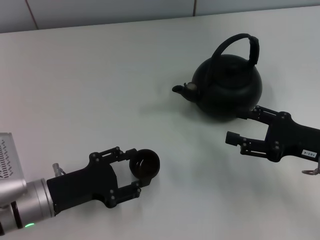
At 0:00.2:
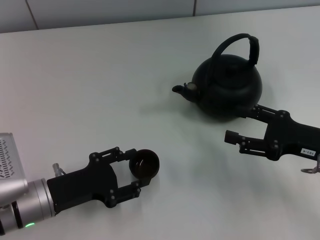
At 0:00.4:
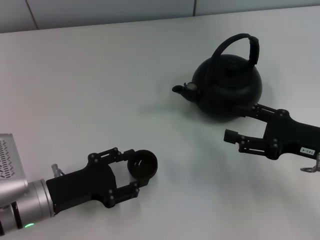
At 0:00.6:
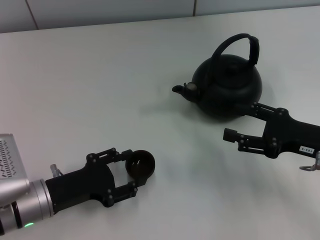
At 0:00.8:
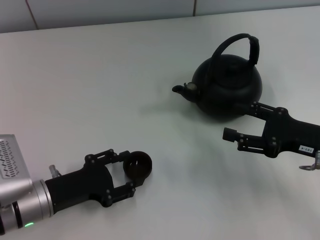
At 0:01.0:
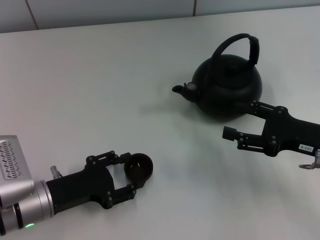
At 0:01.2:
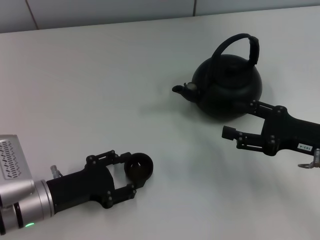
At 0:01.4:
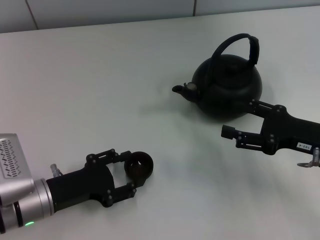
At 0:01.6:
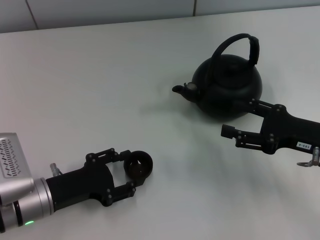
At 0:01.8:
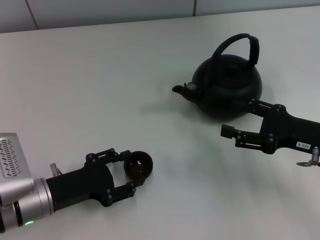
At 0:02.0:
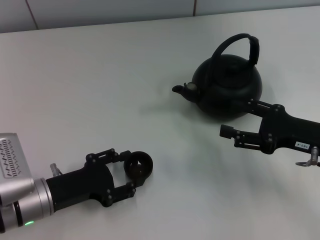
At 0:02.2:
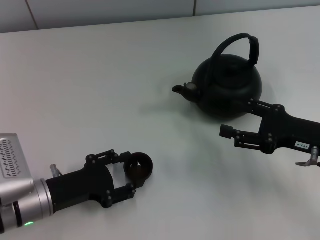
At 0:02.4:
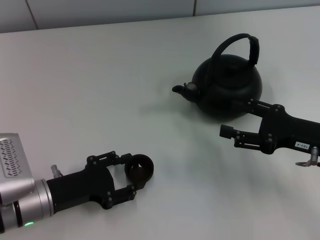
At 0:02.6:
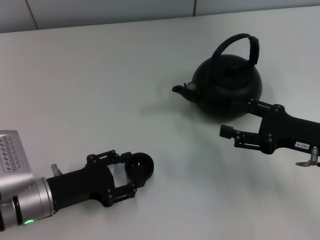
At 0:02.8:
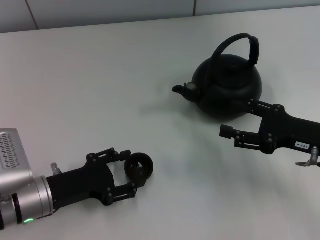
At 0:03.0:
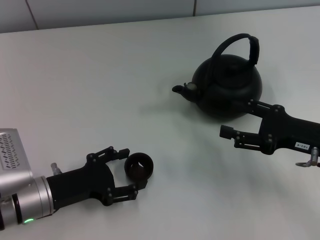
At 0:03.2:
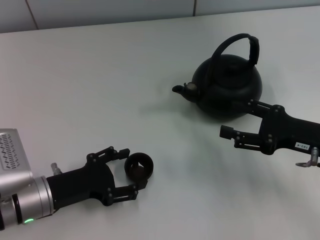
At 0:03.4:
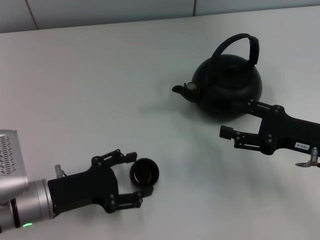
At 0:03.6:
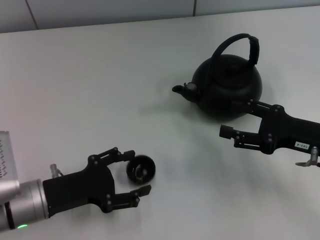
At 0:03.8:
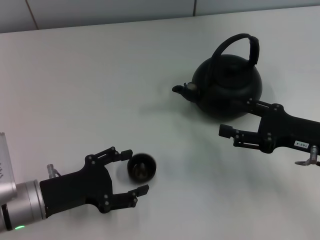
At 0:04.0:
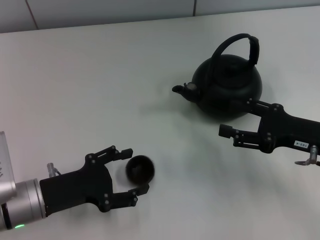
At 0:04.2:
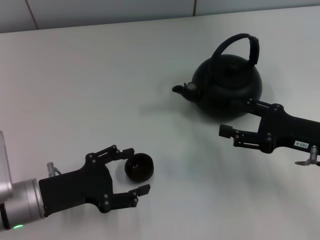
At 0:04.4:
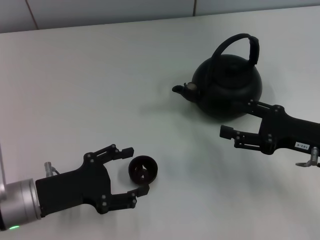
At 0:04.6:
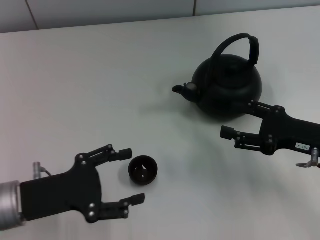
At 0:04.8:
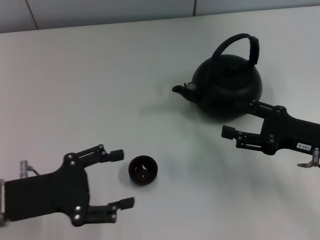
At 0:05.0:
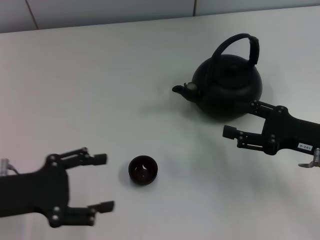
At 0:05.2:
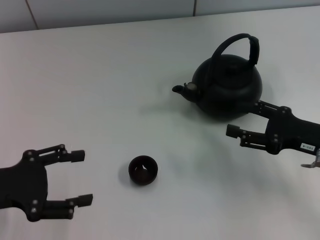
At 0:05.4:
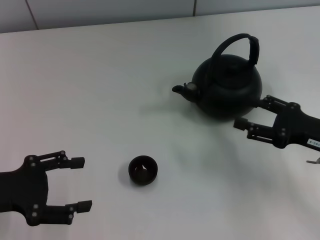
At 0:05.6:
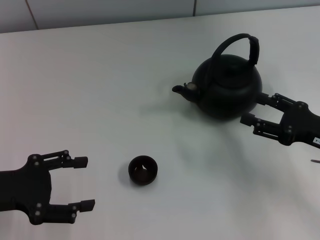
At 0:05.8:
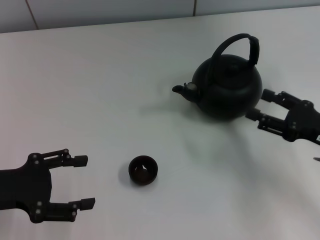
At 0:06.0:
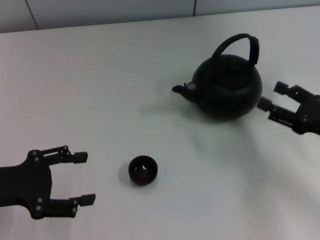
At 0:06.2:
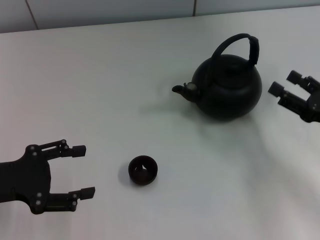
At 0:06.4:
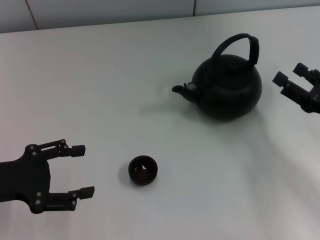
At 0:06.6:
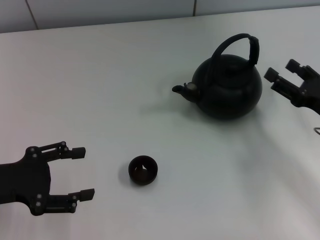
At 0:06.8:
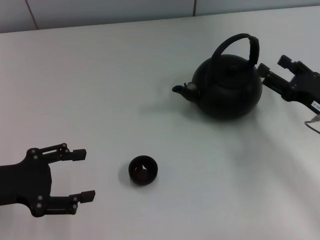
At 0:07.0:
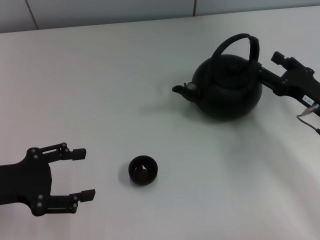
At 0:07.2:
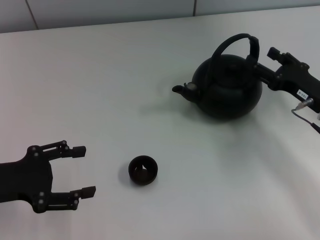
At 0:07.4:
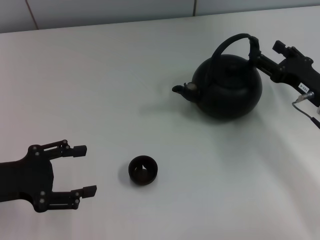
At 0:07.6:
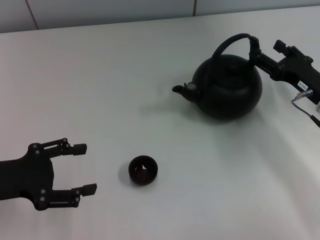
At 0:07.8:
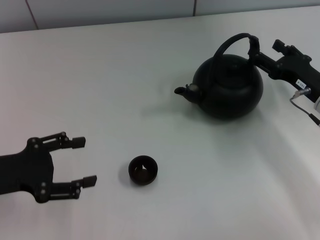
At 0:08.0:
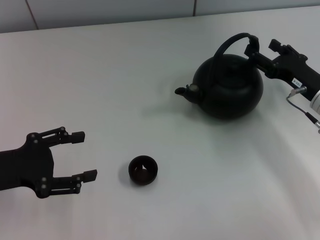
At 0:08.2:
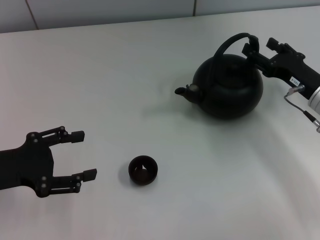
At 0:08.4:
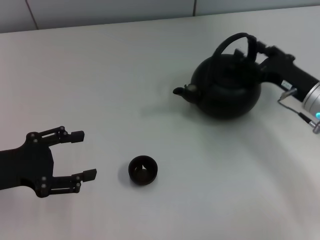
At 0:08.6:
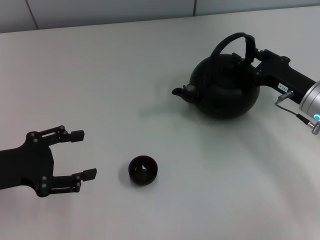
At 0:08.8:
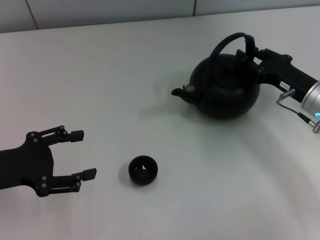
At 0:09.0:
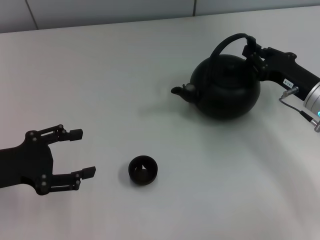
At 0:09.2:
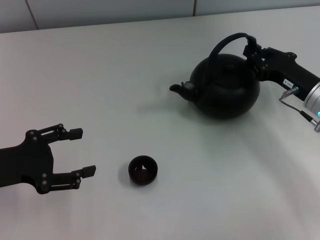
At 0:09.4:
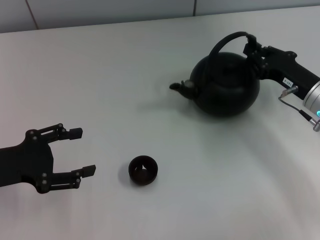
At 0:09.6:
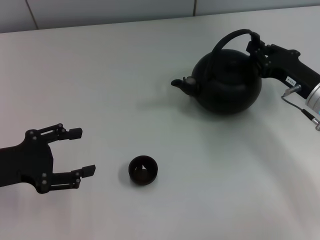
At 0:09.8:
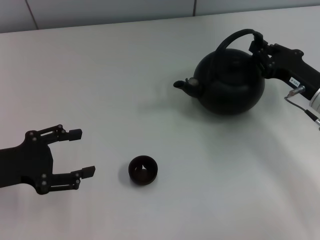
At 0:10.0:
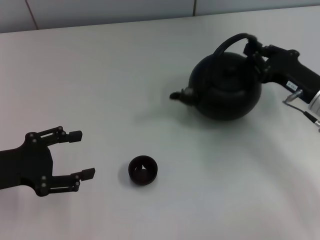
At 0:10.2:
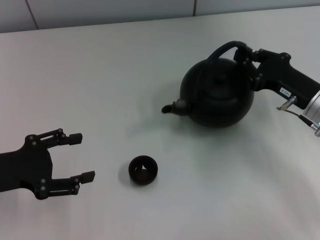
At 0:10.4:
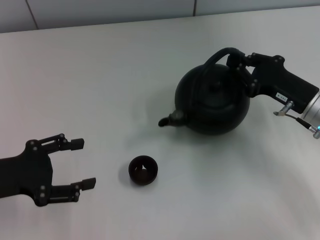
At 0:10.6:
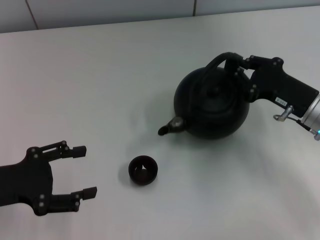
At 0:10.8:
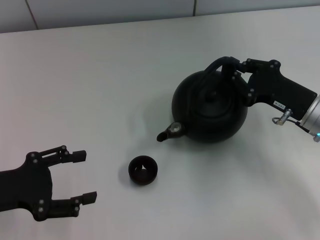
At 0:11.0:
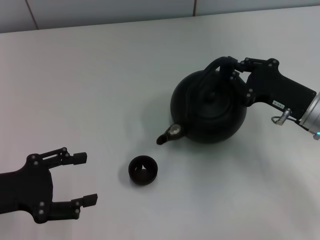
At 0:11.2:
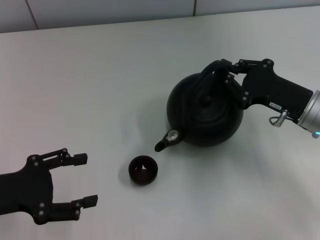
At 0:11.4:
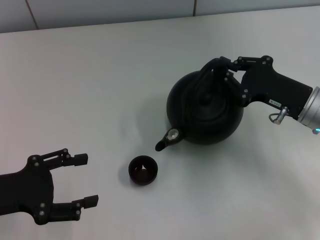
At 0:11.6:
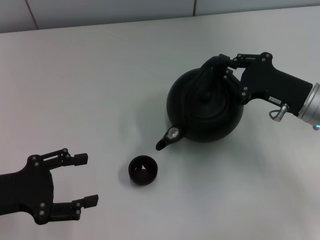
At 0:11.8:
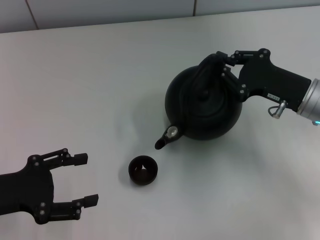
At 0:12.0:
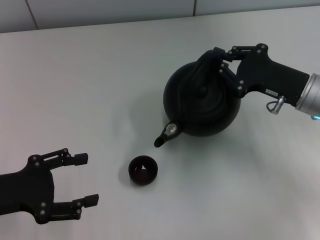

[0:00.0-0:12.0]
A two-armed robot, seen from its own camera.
Task of the whole recording: Grasp the handle of the teapot with one hand and pour tea into the teacup.
Step, 0:00.0 to 0:04.6: Place the teacup in the center of view with the left gripper.
Step, 0:05.0 to 0:11.8: Pick up the teapot with the right gripper.
0:00.0 to 0:01.6: There are only small adjustments of the grippers.
0:01.6 to 0:03.0: Both grippers stay put.
0:03.0 to 0:04.4: The left gripper opens up.
0:04.4 to 0:06.0: The left gripper moves to the left and upward, approximately 10 cm.
0:06.0 to 0:07.6: The right gripper travels forward by roughly 10 cm.
0:07.6 to 0:09.0: The right gripper closes up.
0:09.0 to 0:10.4: There are only small adjustments of the grippers.
0:10.4 to 0:12.0: The grippers move only a little.

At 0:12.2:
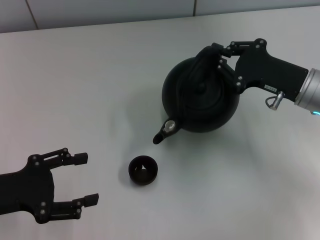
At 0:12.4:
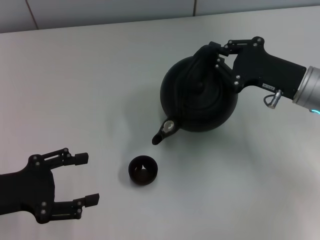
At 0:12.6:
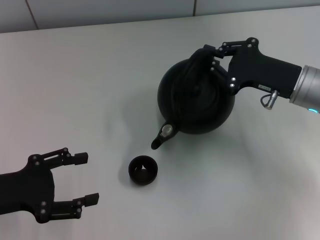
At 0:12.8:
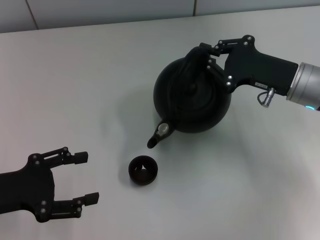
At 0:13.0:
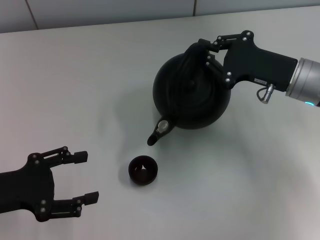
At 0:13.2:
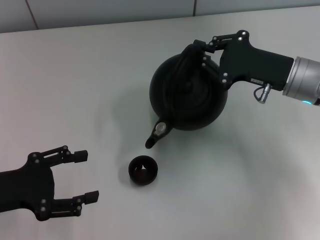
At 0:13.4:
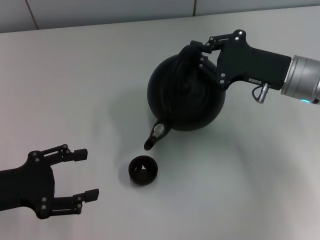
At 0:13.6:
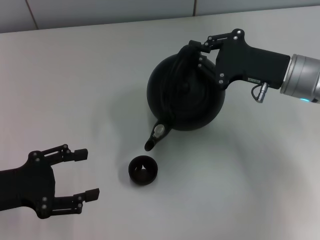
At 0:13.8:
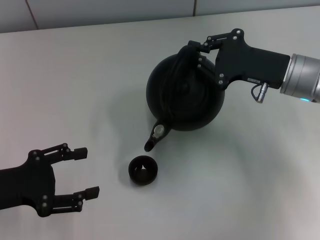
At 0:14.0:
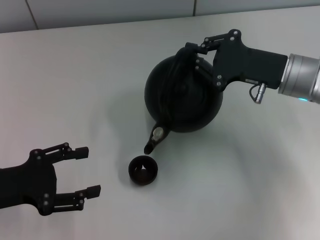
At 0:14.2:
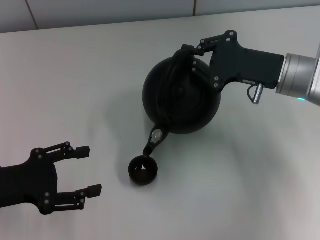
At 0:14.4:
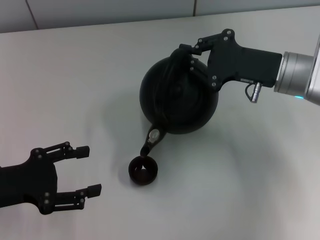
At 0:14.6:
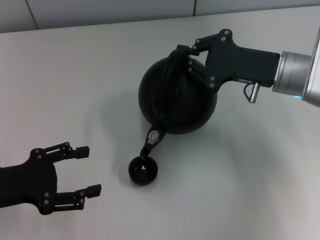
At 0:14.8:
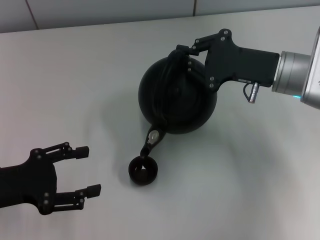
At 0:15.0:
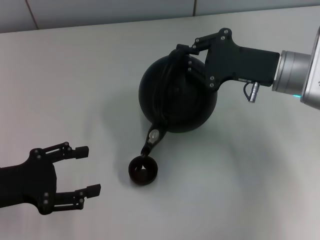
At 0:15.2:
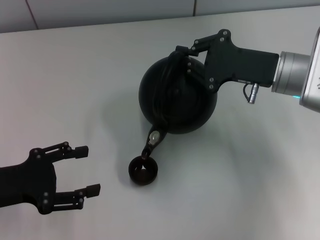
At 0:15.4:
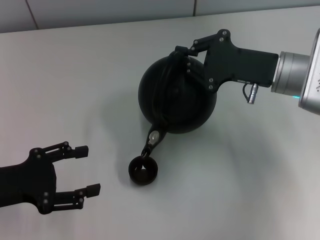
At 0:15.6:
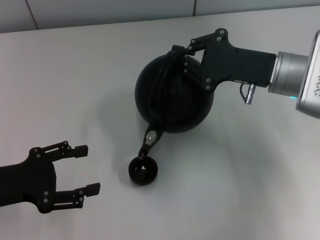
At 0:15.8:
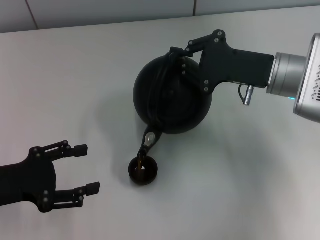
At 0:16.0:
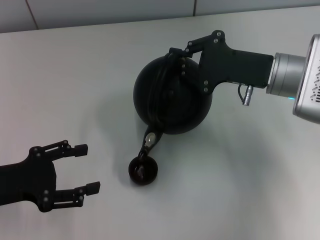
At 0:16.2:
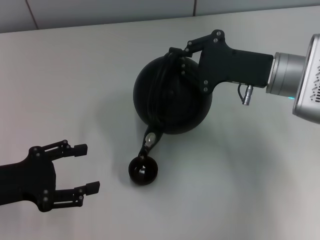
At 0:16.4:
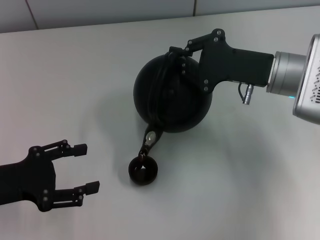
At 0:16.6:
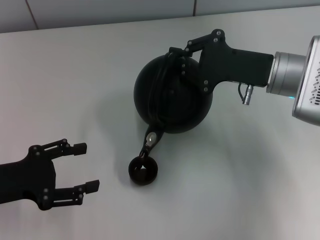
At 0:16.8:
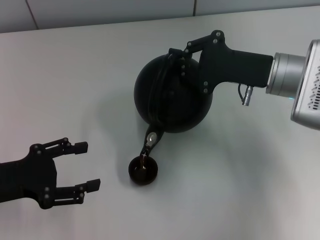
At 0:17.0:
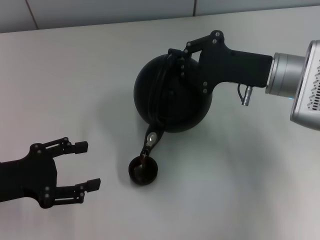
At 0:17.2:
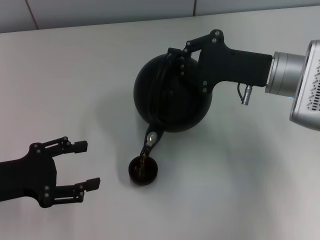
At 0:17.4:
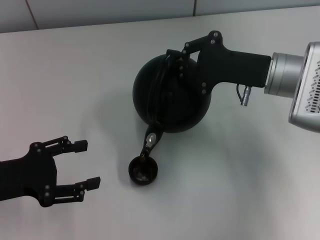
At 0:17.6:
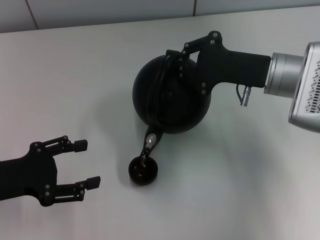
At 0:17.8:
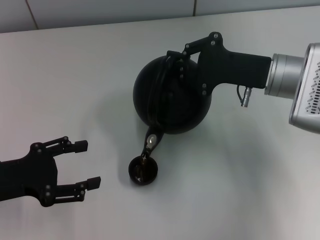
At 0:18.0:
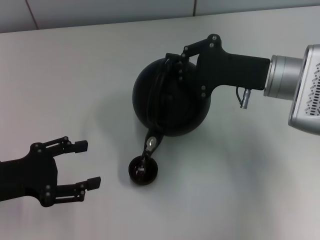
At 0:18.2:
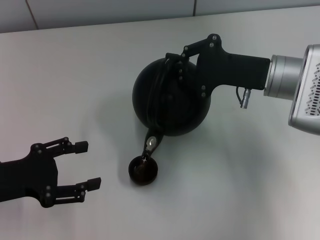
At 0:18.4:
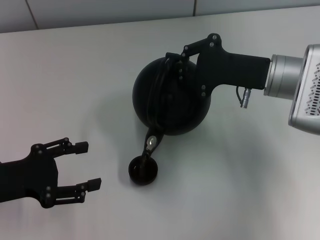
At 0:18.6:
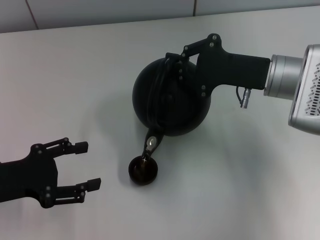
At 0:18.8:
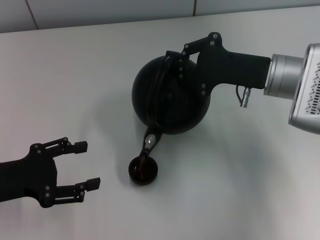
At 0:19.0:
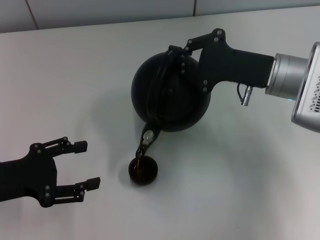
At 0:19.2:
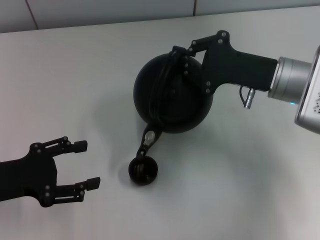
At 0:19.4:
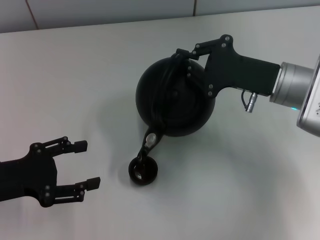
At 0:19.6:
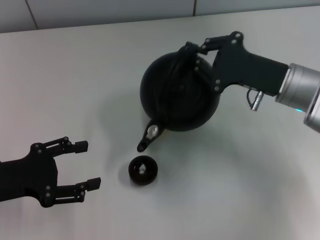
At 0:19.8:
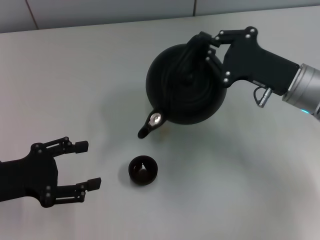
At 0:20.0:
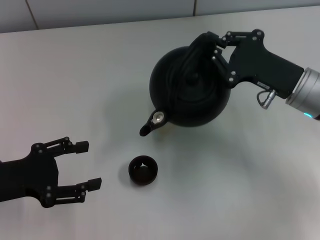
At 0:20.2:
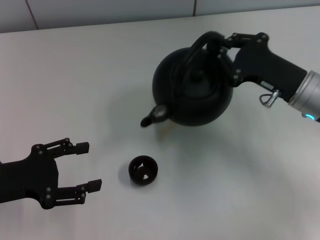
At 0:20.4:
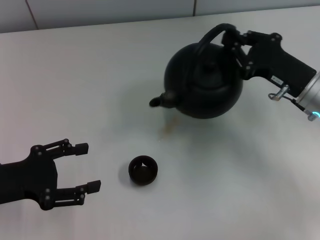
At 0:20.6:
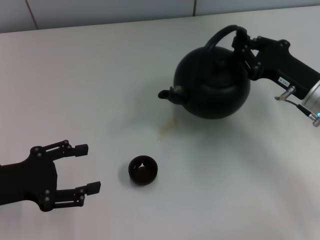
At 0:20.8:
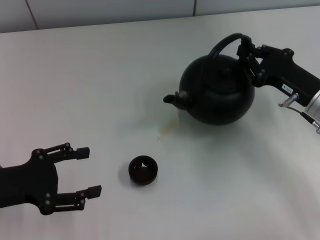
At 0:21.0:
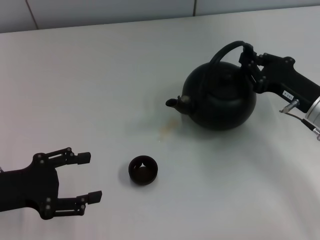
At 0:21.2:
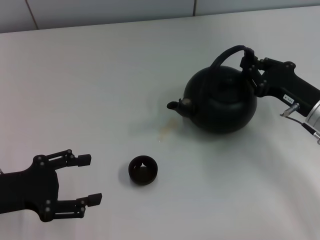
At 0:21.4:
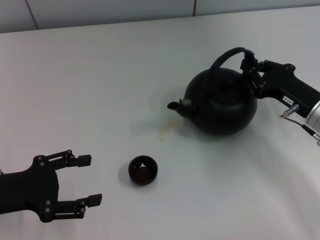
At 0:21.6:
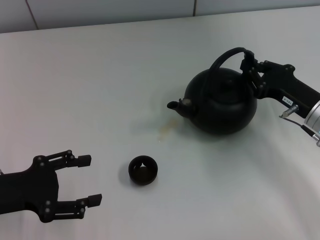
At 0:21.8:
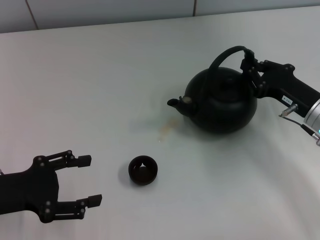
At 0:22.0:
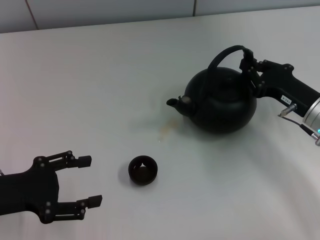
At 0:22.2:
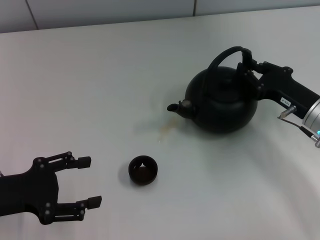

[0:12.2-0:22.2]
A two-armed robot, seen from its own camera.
Task of the whole recording: Grasp the handle of the teapot with one hand and pour tea into the teacup.
0:12.2 to 0:15.0: There are only small adjustments of the grippers.
0:15.0 to 0:19.4: The grippers stay close to where they were, moving slightly.
0:19.4 to 0:20.8: The right gripper is displaced to the right by about 5 cm.
0:20.8 to 0:22.2: The grippers make only small movements.
